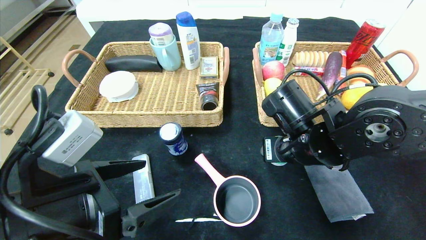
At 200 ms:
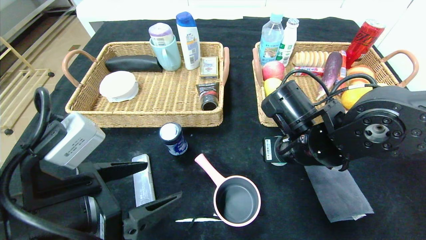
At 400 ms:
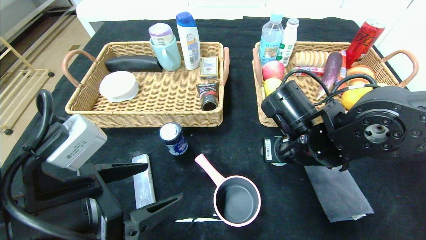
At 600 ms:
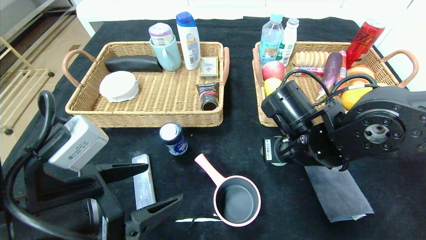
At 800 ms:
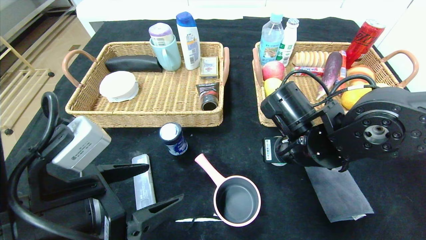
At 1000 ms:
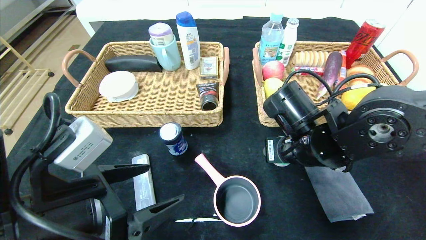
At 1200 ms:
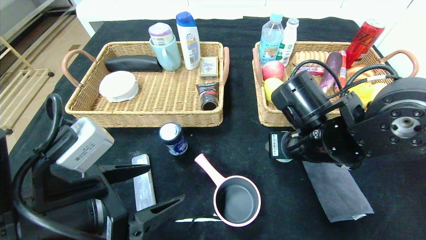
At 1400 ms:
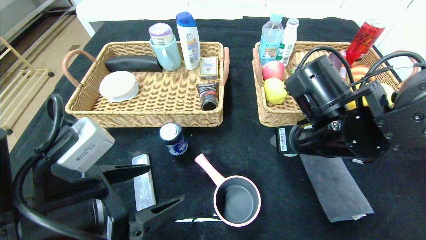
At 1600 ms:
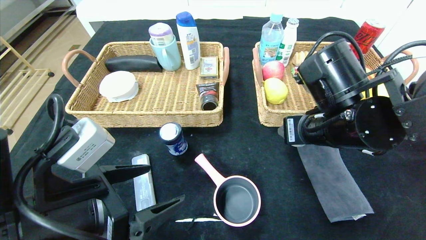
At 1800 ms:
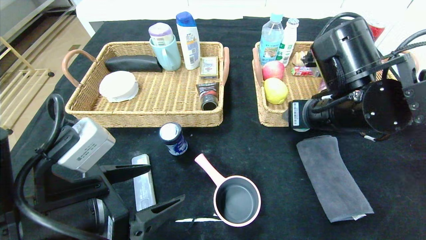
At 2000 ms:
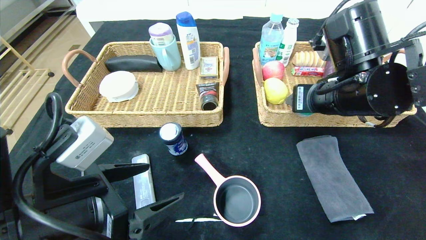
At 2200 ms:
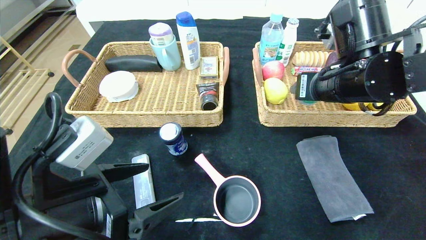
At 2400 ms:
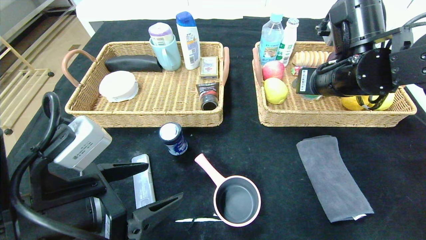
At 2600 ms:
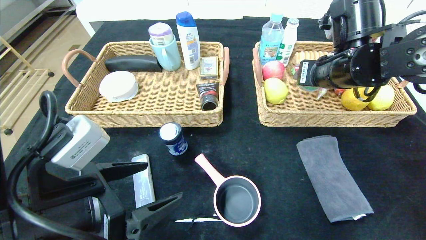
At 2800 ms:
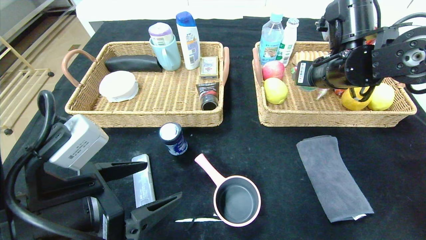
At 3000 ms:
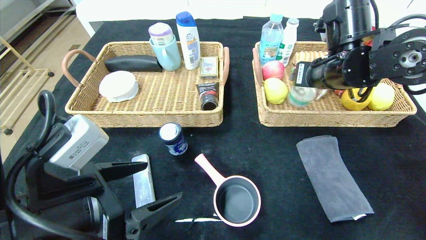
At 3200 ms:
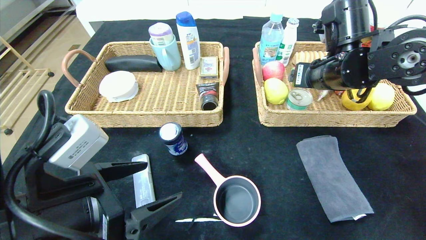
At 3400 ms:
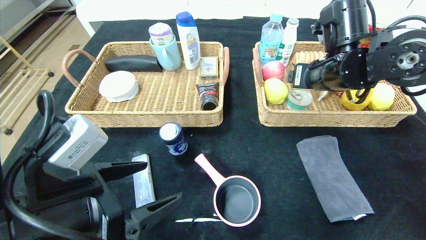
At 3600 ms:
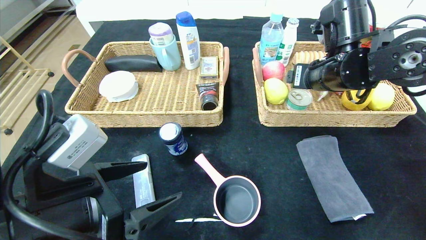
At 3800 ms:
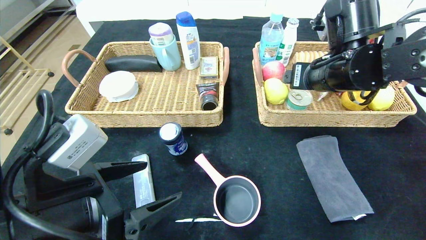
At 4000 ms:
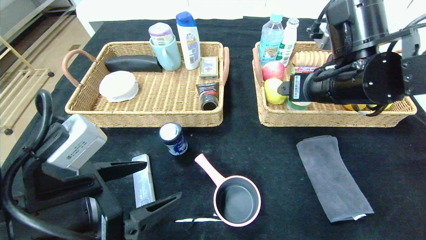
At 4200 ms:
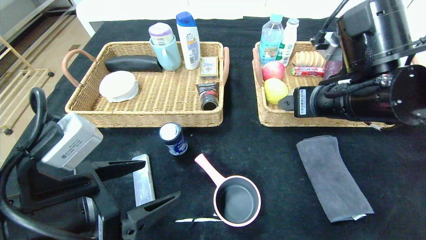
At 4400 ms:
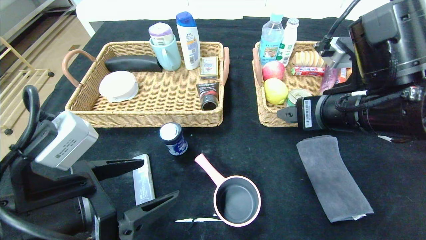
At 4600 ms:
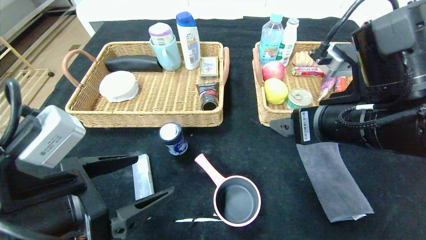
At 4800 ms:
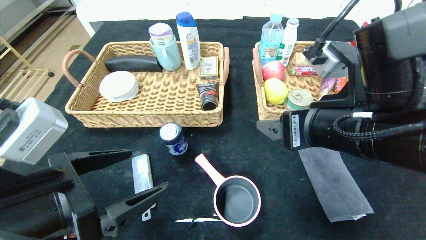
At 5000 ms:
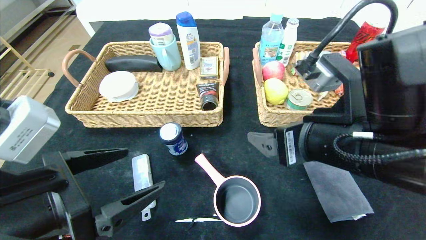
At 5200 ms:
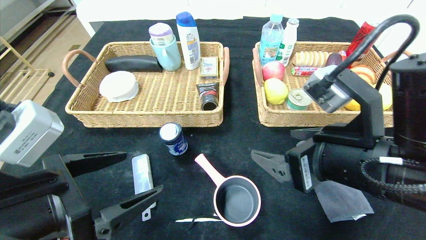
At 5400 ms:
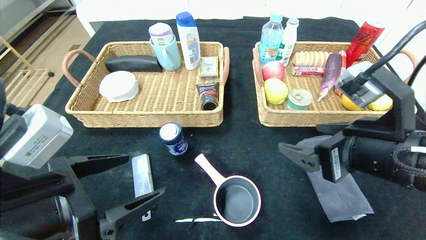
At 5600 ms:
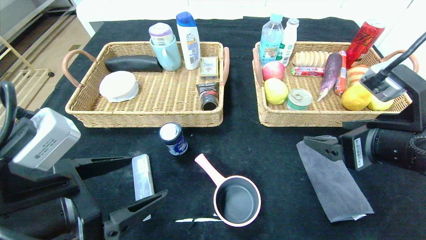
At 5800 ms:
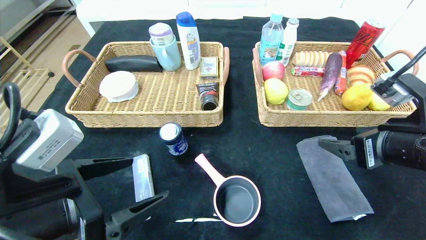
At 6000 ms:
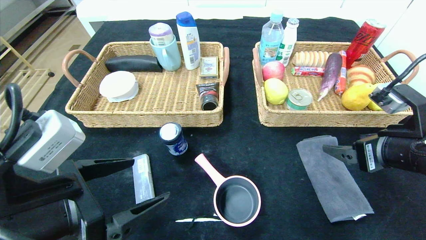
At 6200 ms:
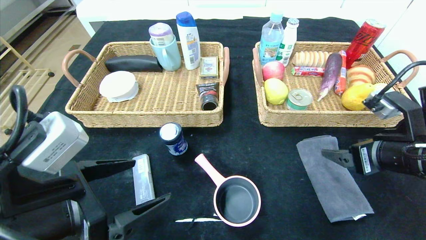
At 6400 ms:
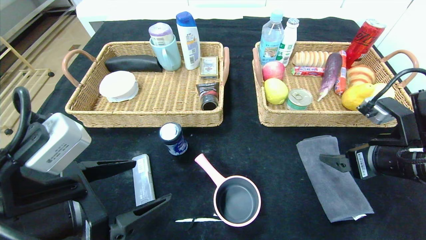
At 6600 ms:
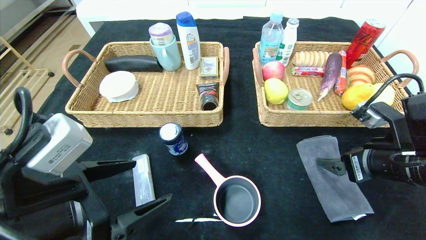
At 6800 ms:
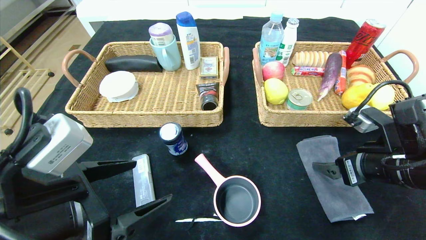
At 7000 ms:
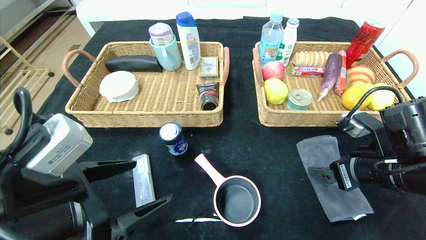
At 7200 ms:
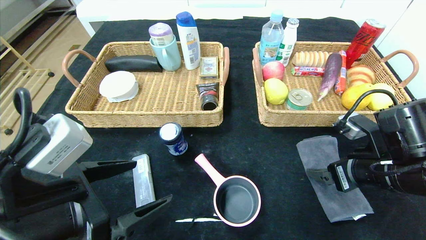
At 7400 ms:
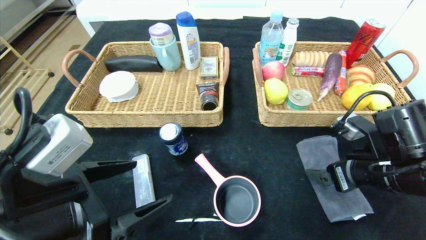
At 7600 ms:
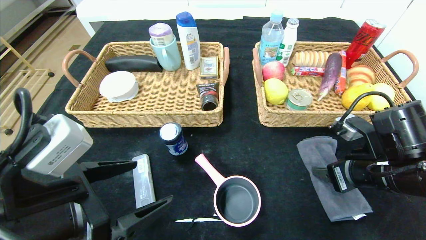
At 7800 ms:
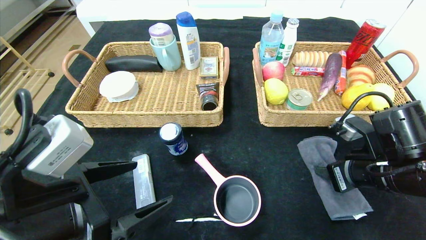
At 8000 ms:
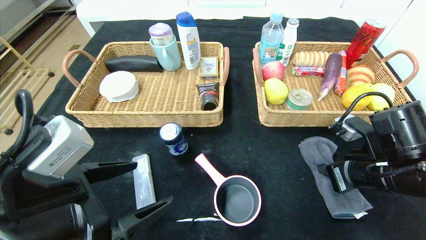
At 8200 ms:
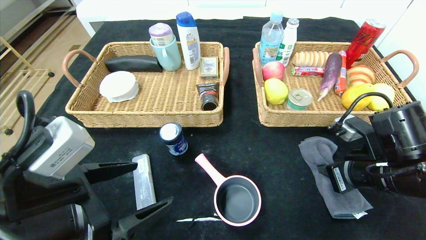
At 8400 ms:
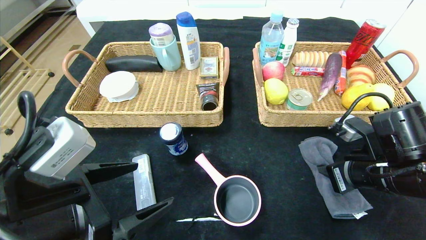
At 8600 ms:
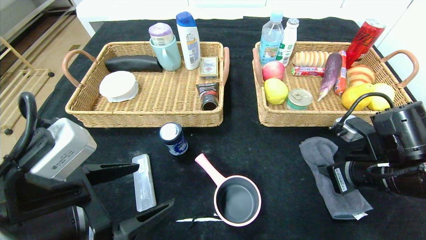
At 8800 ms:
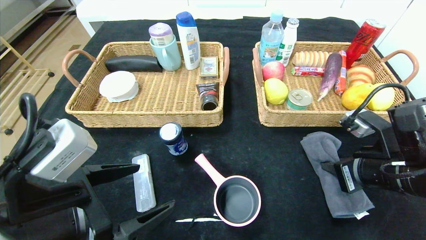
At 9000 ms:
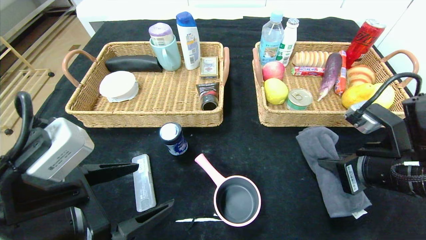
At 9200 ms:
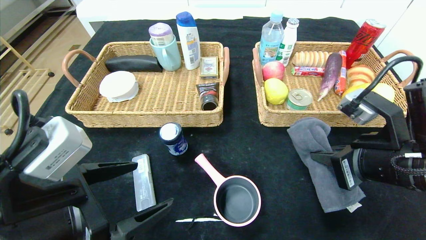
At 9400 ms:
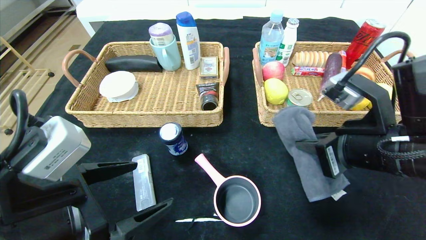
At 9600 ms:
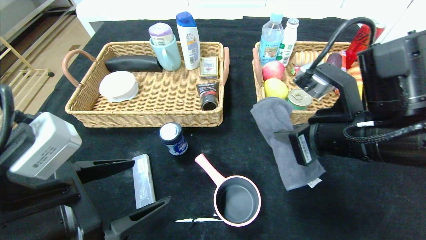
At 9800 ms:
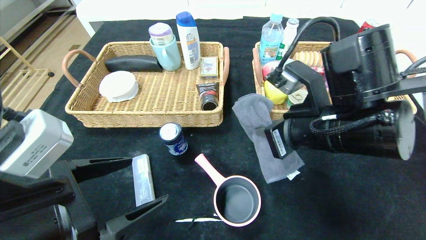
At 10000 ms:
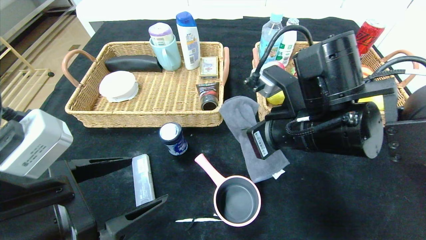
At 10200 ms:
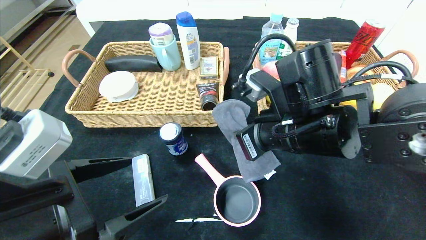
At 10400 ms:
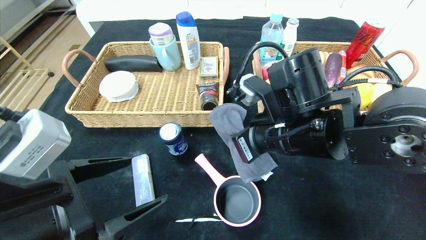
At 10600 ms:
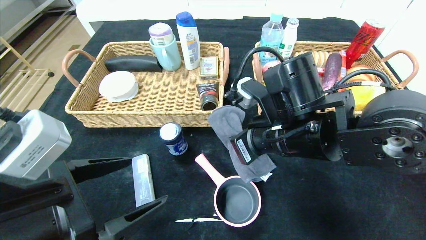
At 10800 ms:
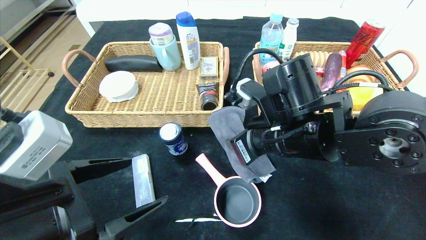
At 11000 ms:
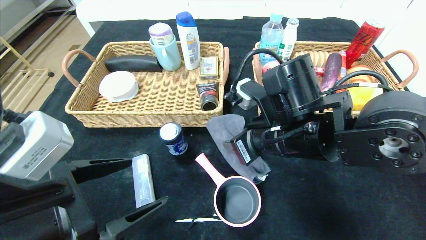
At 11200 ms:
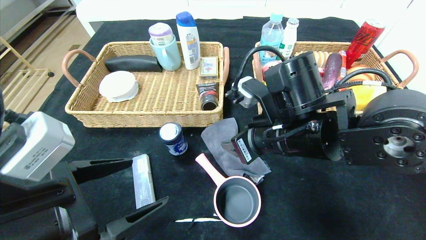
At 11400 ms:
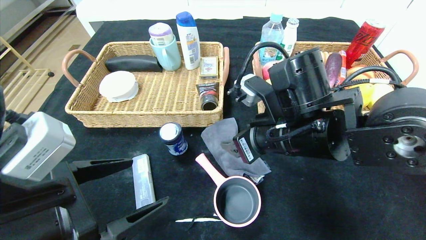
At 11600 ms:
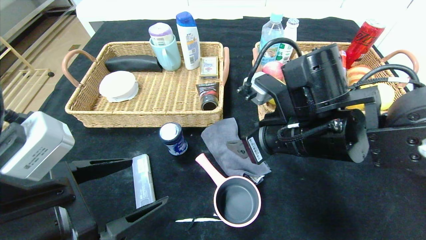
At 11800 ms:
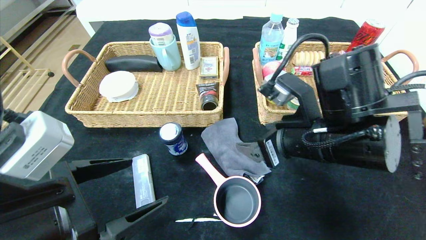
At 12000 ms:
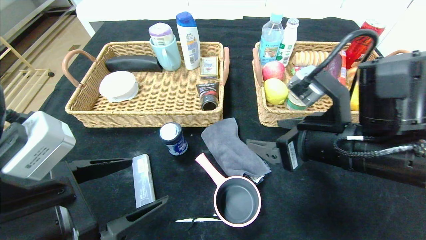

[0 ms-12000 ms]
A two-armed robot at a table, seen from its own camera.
Step, 0 ms to 4600 ms: Pick up the can and put it in the right basket.
0 ms to 1600 ms: The right gripper ends up roughly 5 cm from where it was.
1600 ms to 3000 ms: The right gripper moves forward and upward, about 10 cm.
3000 ms to 4400 ms: The right gripper goes approximately 10 cm backward.
4400 ms to 6000 ms: The right gripper goes approximately 10 cm to the right and downward.
6000 ms to 7600 ms: The right gripper moves downward, some 5 cm, and closes up.
7600 ms to 9000 ms: The right gripper changes place by roughly 5 cm, and closes its fingers.
9000 ms to 10400 ms: The right gripper is displaced to the left by roughly 15 cm.
10400 ms to 12000 ms: The right gripper shifts approximately 5 cm to the right, and opens its fingers.

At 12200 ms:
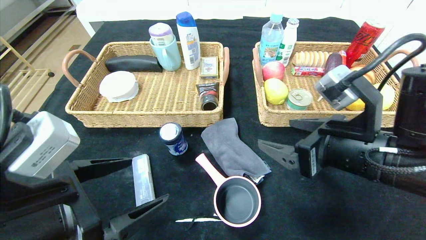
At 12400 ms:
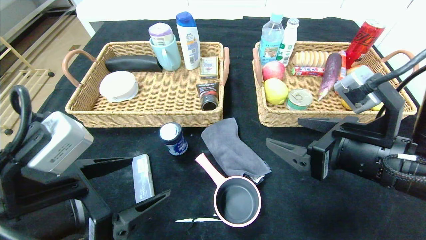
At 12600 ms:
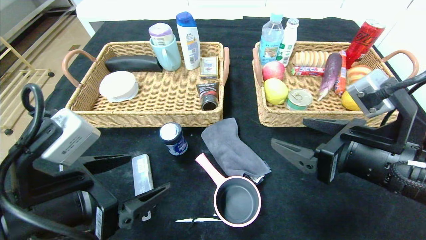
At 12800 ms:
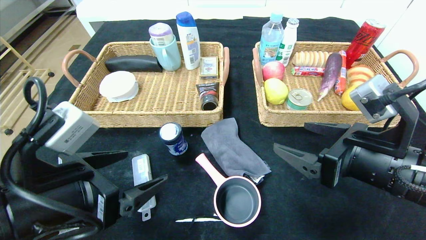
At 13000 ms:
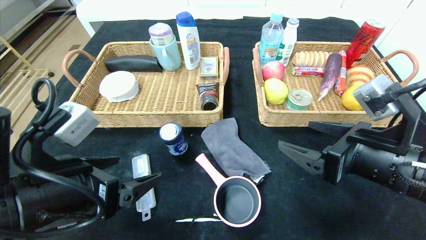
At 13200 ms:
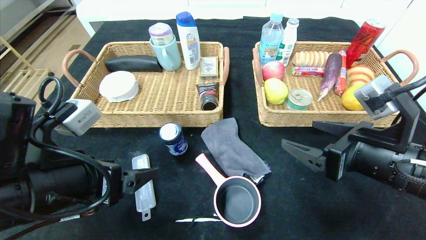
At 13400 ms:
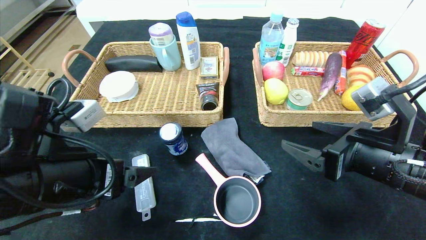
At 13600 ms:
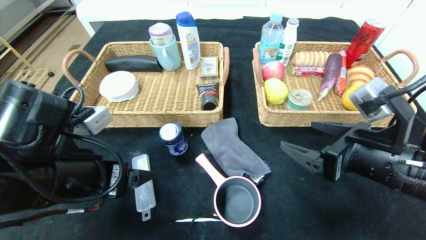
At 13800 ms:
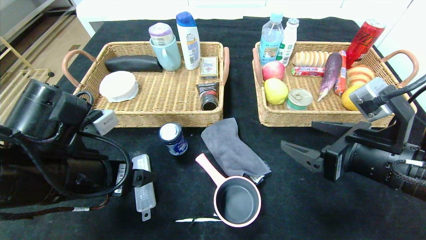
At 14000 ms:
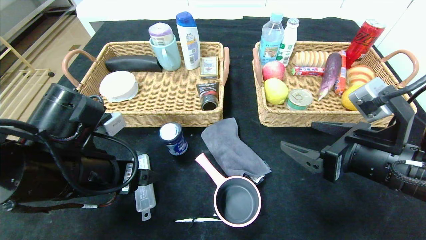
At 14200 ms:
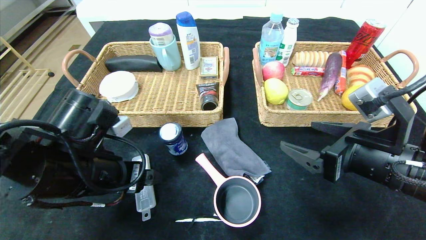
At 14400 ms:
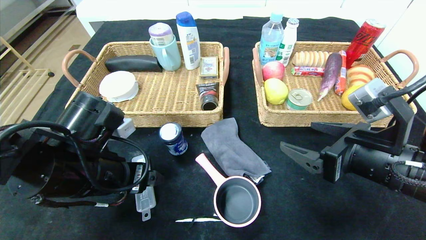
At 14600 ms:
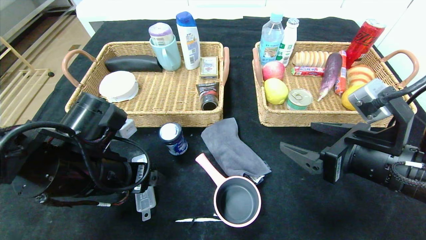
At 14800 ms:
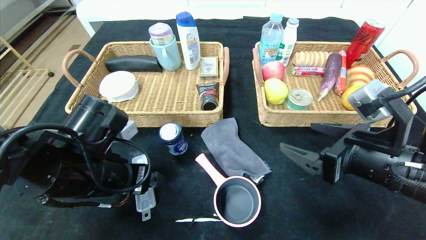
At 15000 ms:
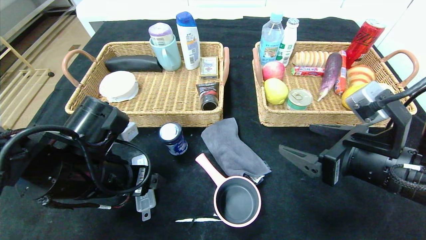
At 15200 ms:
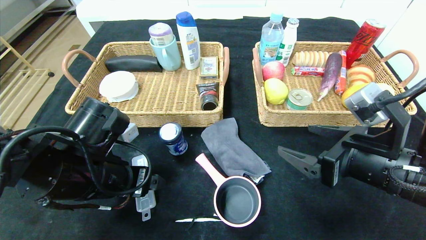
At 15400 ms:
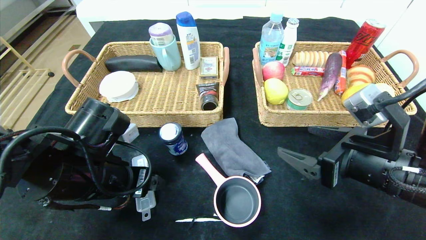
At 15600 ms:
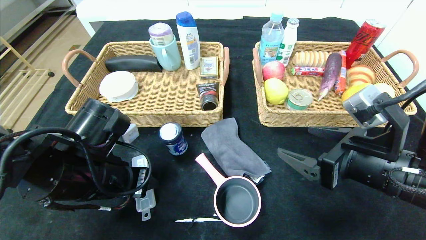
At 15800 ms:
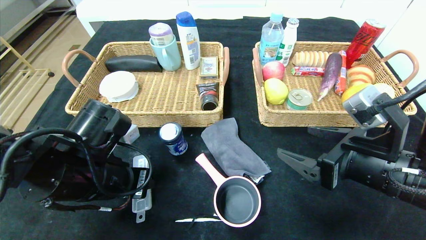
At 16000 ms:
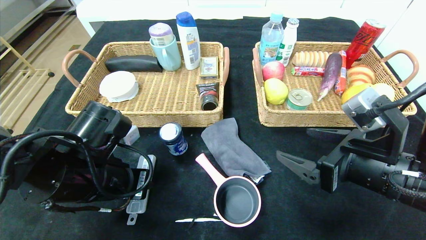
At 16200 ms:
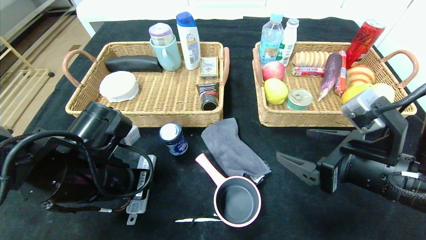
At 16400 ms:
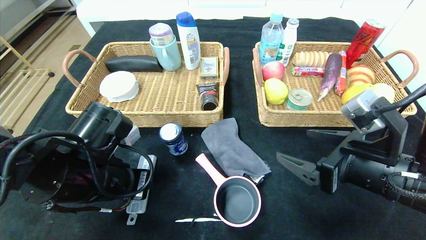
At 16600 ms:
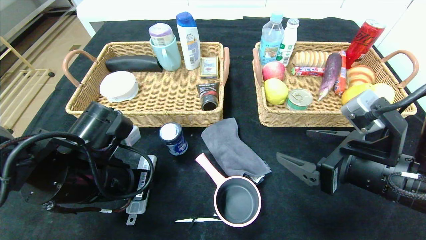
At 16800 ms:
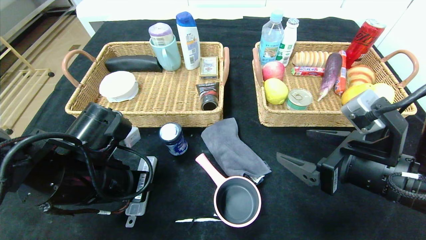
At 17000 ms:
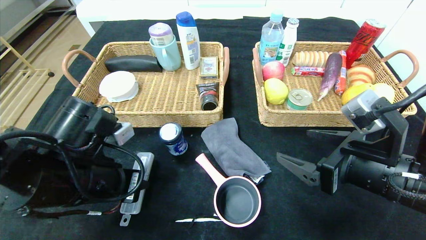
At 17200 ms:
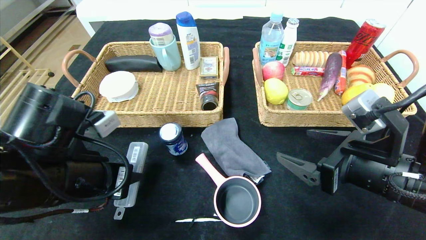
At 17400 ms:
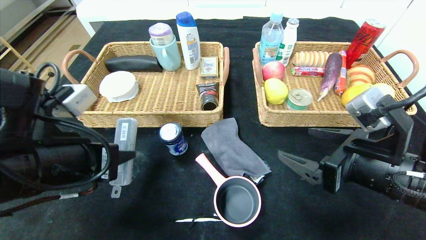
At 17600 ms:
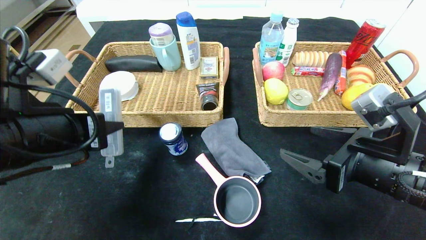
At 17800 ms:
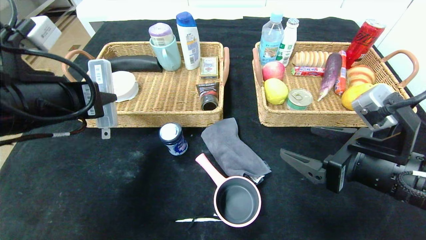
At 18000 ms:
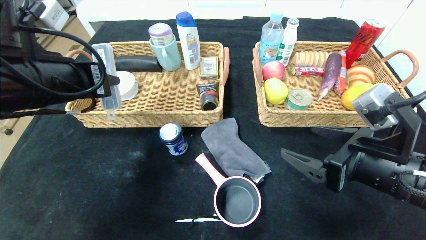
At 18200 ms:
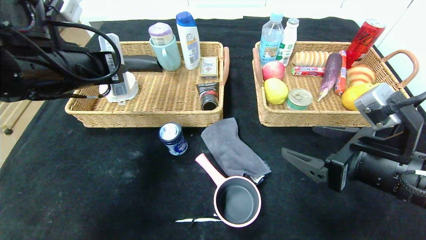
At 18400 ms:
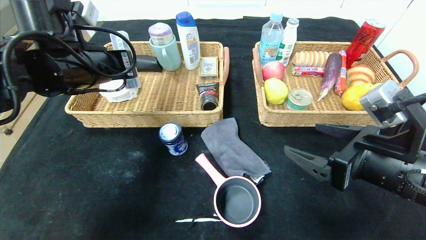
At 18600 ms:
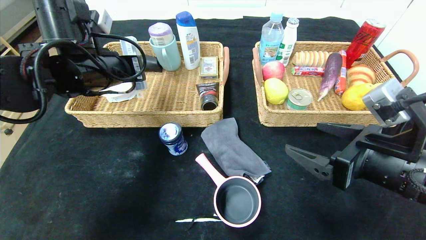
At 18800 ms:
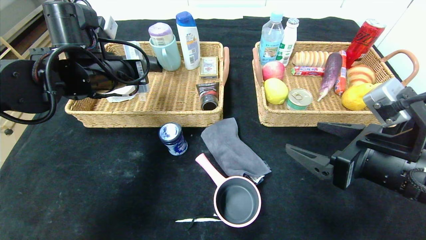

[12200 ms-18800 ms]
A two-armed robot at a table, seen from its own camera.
12200 ms to 13800 ms: The left gripper travels forward by about 5 cm.
13800 ms to 15400 ms: There are only small adjustments of the grippers.
15400 ms to 17200 ms: The left gripper closes up.
17200 ms to 18800 ms: The left gripper goes approximately 15 cm forward and upward.
